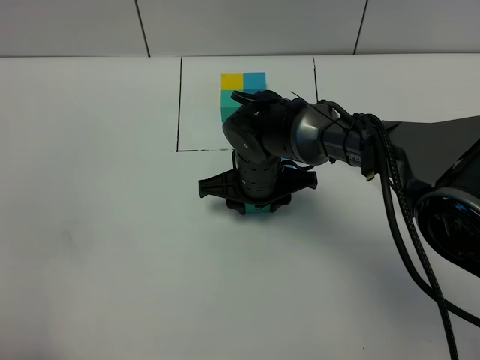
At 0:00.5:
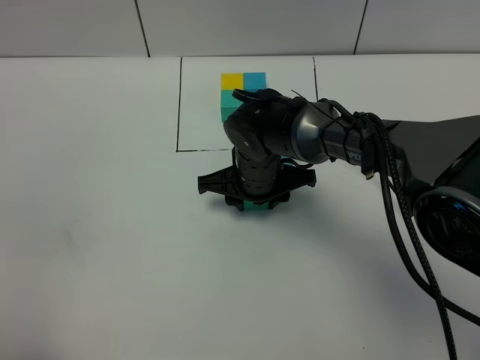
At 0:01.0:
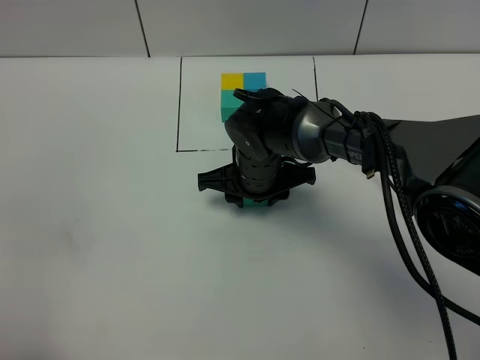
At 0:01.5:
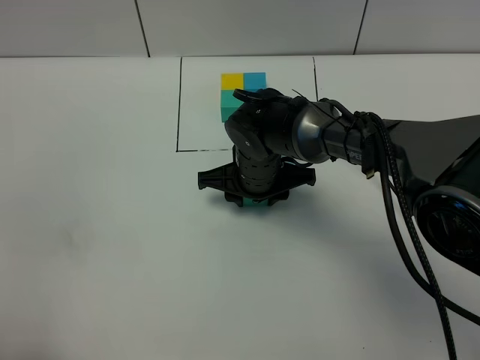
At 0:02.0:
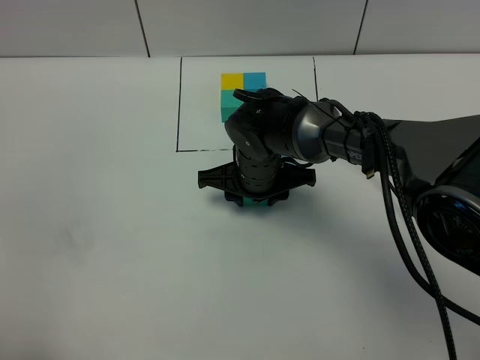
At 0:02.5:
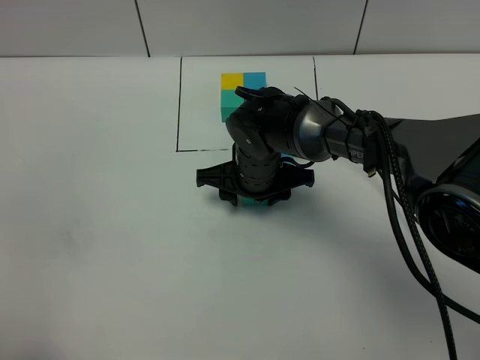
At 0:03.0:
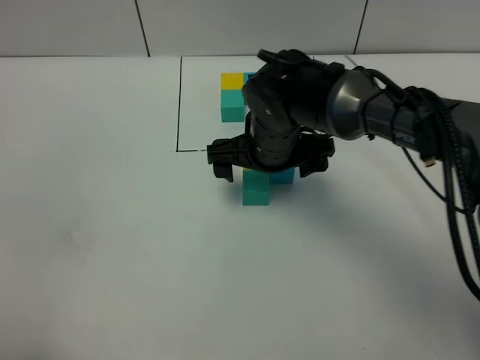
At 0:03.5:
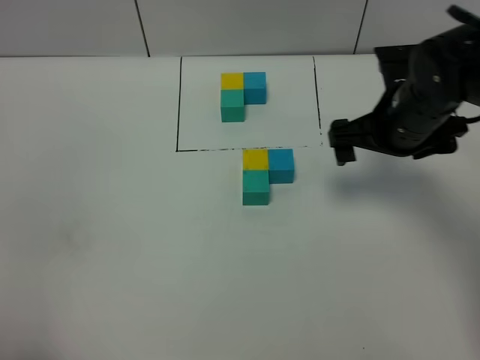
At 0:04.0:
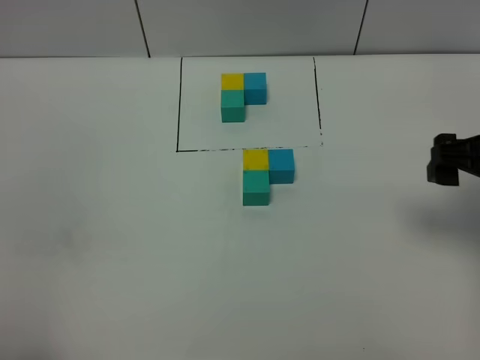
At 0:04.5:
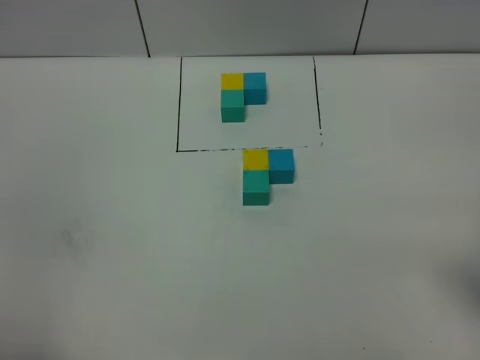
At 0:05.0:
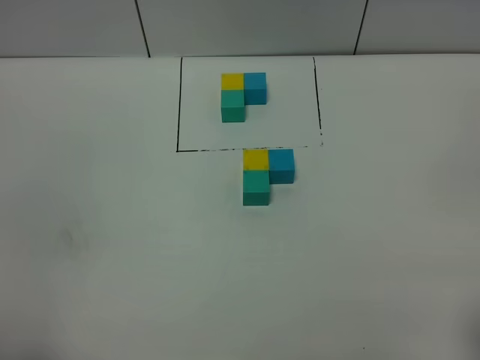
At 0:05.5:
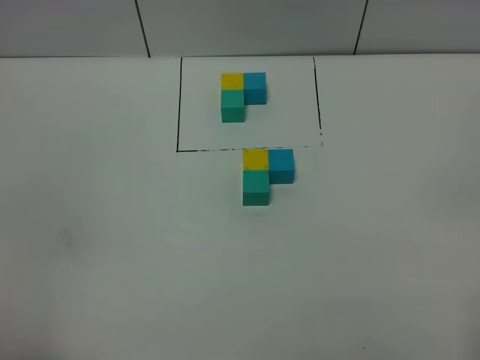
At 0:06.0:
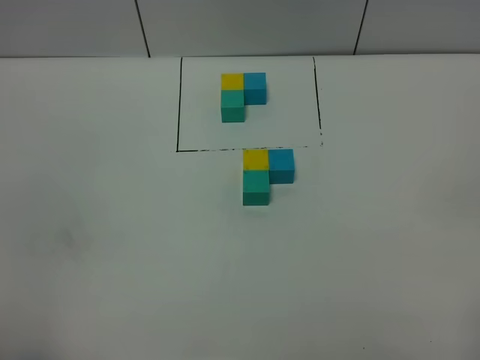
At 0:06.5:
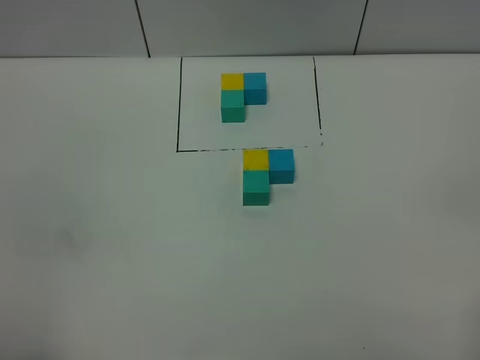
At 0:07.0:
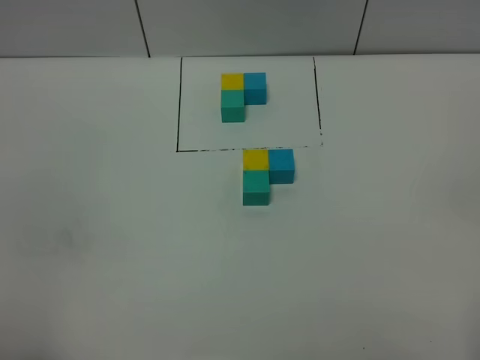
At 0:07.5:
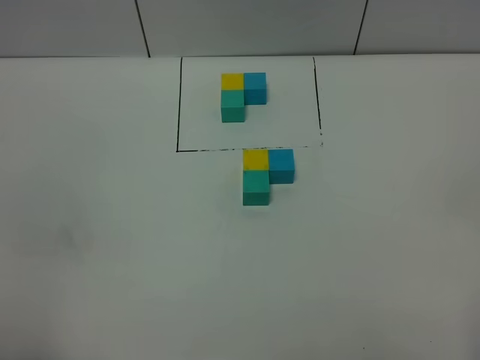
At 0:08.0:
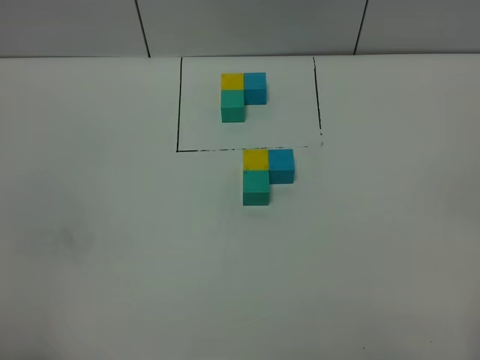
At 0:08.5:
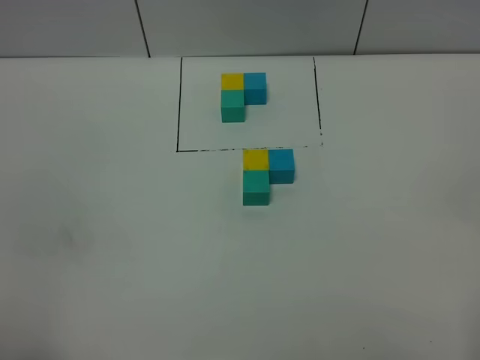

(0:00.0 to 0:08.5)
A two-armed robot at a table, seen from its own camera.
Task of the whole recording: According to the building block template in front, assemble the scattered blocks together.
Step, 0:00.0 - 0:02.5: Put the green build block on the behind of the yellow build block.
0:00.0 - 0:02.0: Both grippers stay about where they are.
0:02.0 - 0:04.0: The right gripper goes some 30 cm to the right, upward and backward, and opens its fingers.
0:04.0 - 0:06.5: The right gripper heads backward, covering roughly 25 cm.

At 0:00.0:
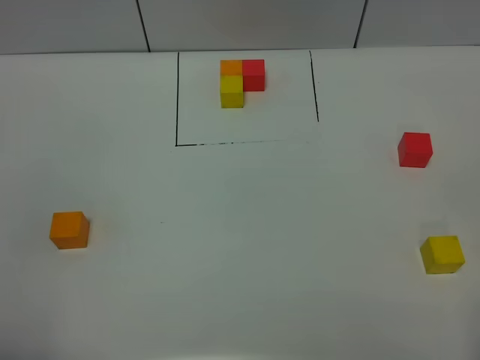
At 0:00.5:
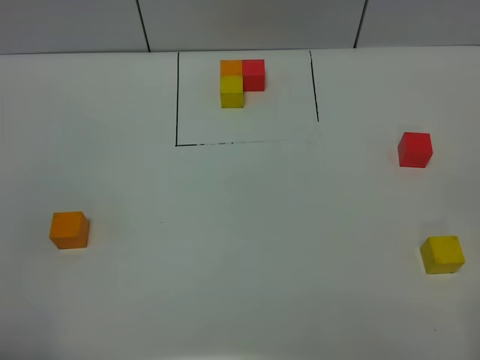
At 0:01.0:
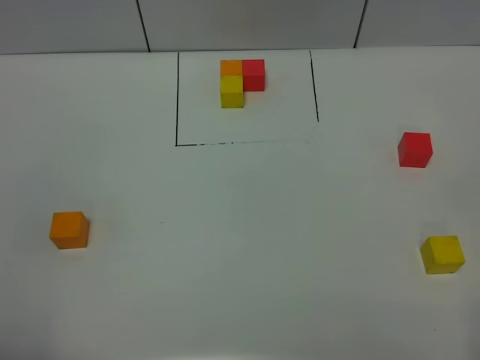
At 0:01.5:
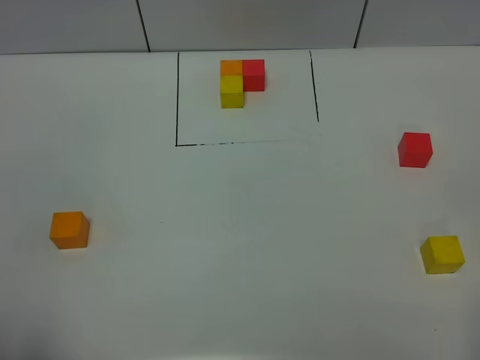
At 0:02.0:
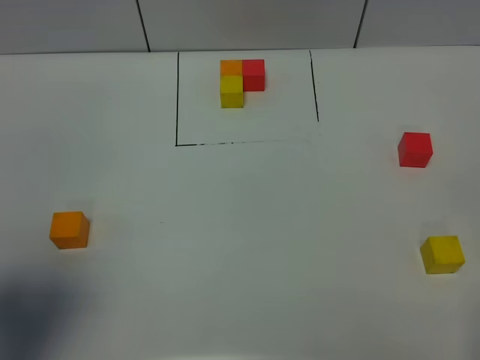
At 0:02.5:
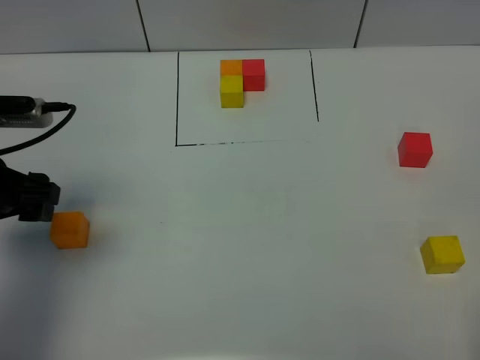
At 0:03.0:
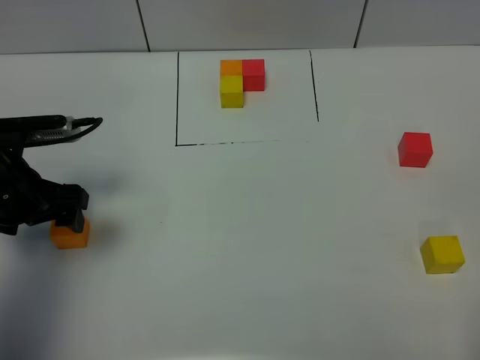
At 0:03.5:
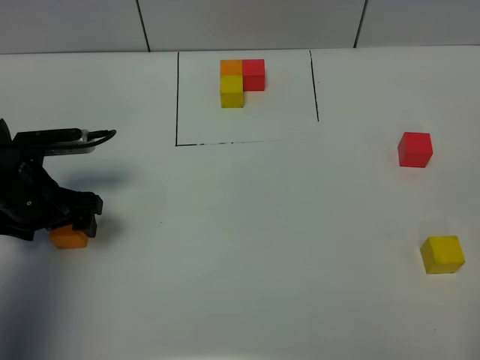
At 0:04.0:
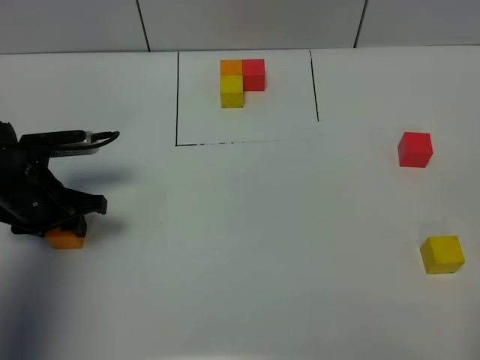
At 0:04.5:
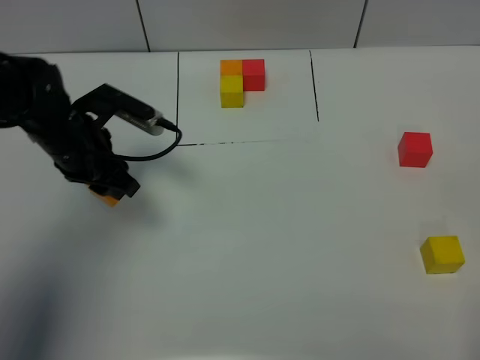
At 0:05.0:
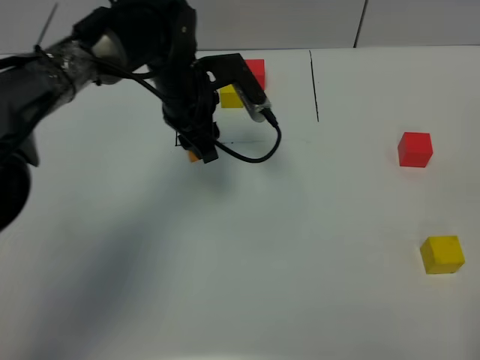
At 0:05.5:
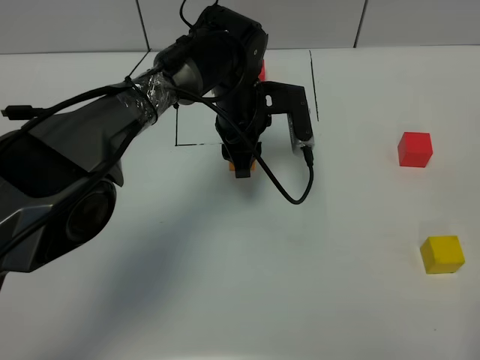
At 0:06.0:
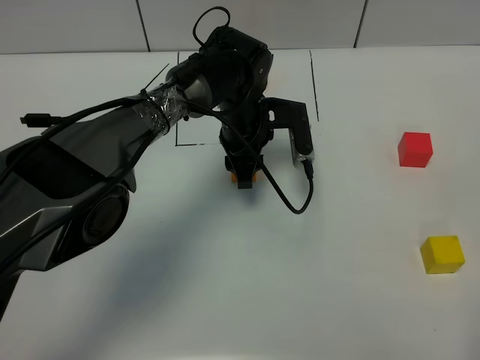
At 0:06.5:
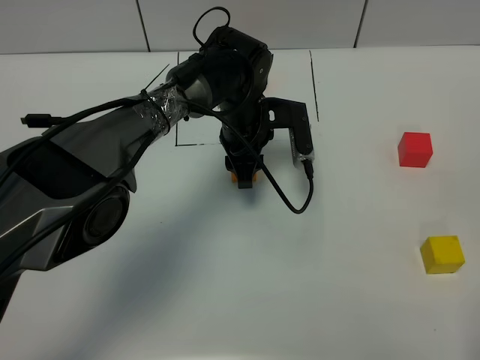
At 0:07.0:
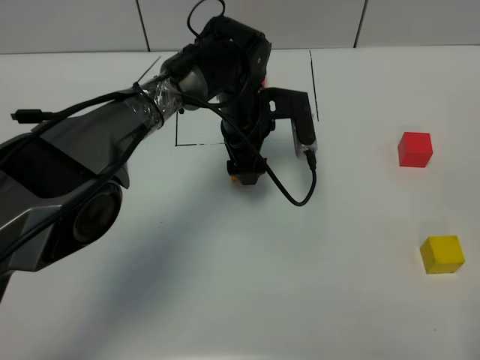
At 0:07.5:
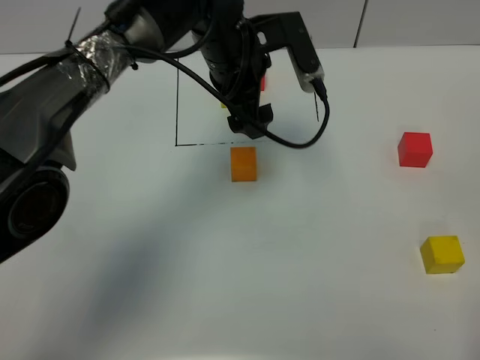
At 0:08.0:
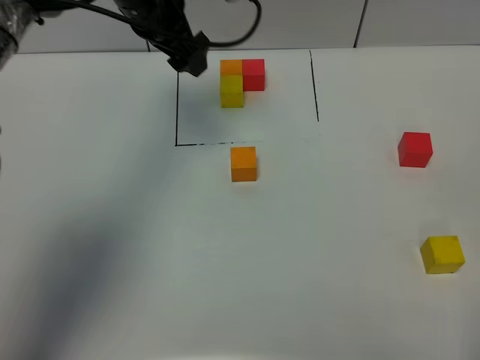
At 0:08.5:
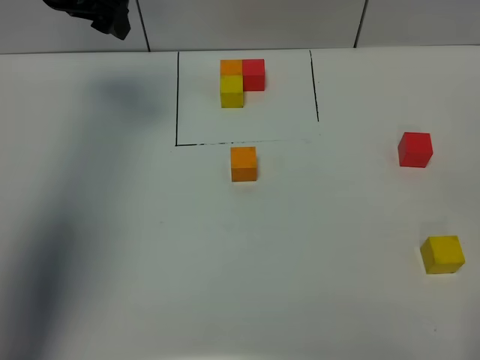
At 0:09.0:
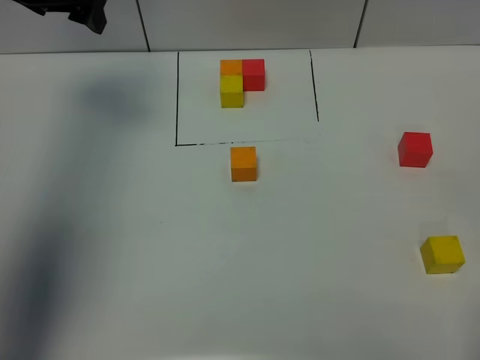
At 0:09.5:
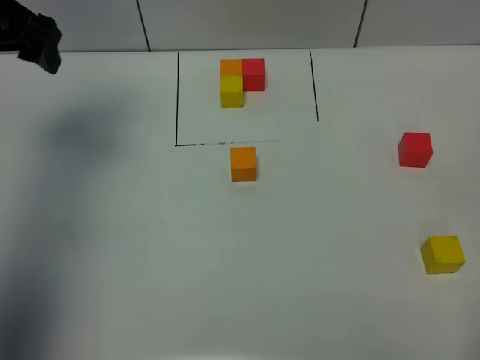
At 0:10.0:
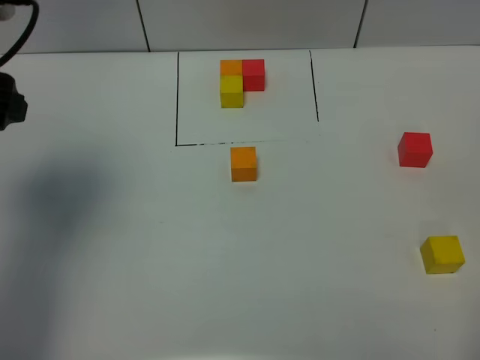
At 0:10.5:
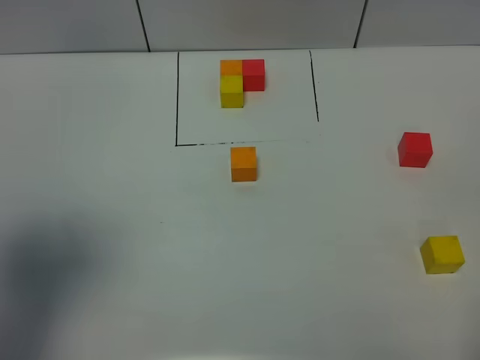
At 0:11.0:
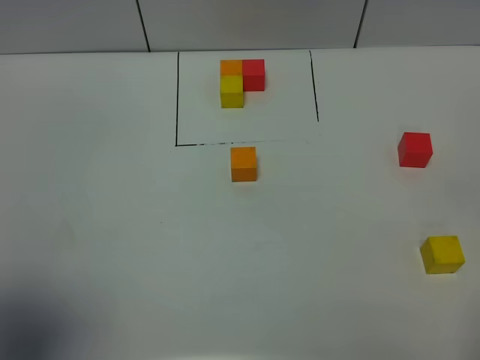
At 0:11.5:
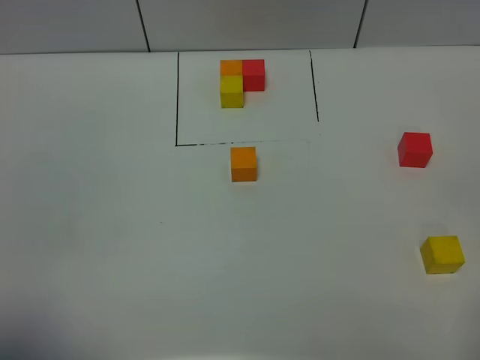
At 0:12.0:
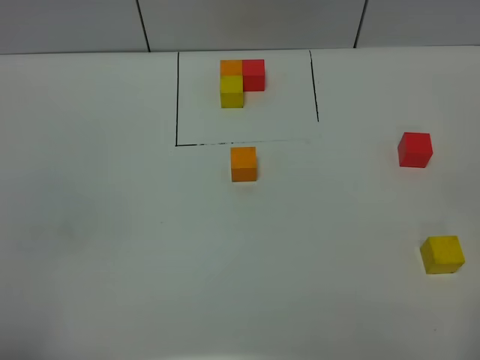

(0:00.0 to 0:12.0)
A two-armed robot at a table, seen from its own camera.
Task of the whole recording: According to the building block template in front, assemble the scattered blocks together.
Step, 0:00.0 - 0:06.5: Put the orange build block in the center of the table.
0:00.0 - 0:02.0: The left gripper travels forward by some 15 cm.
0:02.0 - 0:04.0: The left gripper travels forward and downward by roughly 25 cm, and closes its fingers.
0:04.0 - 0:06.0: The left gripper moves to the right and forward, some 30 cm.
0:06.0 - 0:08.0: The left gripper shifts roughly 20 cm upward and to the left, and opens its fingers.
0:08.0 - 0:10.0: The left gripper shifts approximately 25 cm backward and to the left.
0:10.0 - 0:12.0: The left gripper shifts about 25 cm backward.

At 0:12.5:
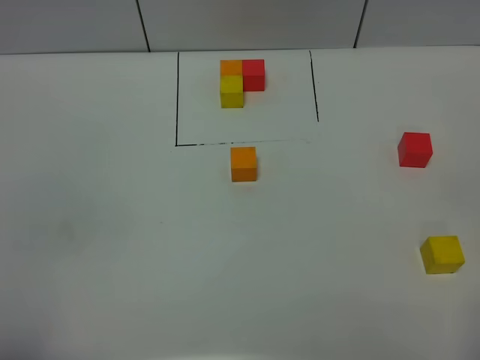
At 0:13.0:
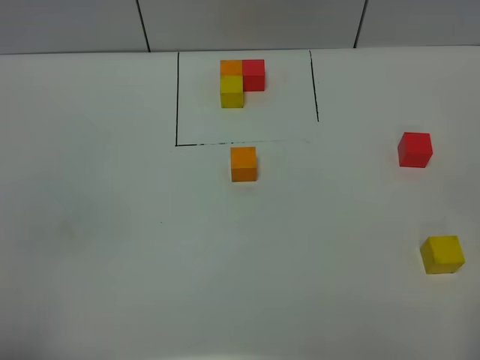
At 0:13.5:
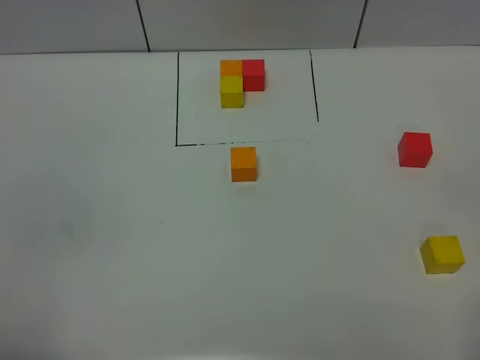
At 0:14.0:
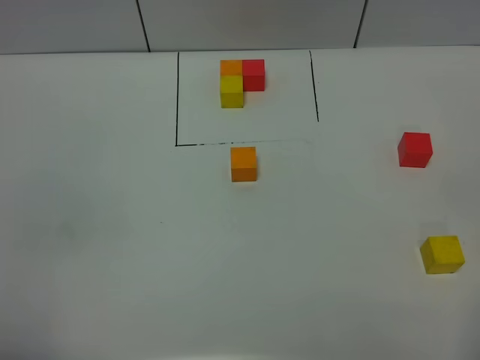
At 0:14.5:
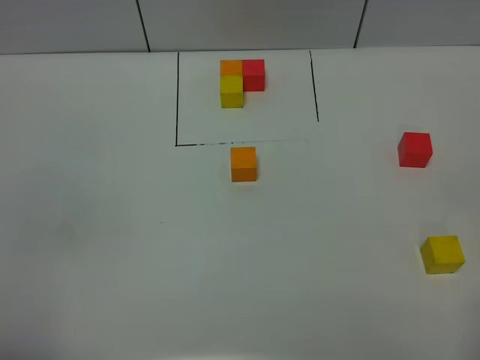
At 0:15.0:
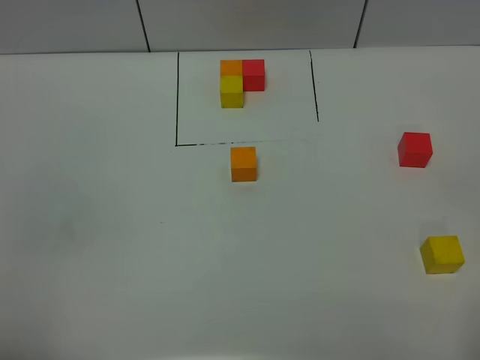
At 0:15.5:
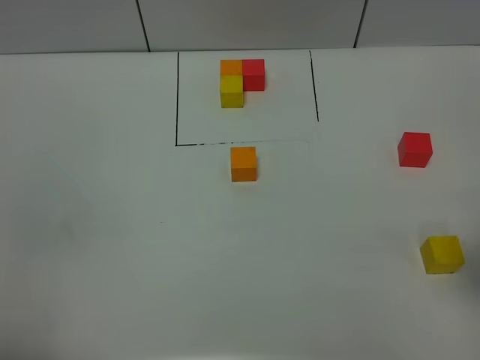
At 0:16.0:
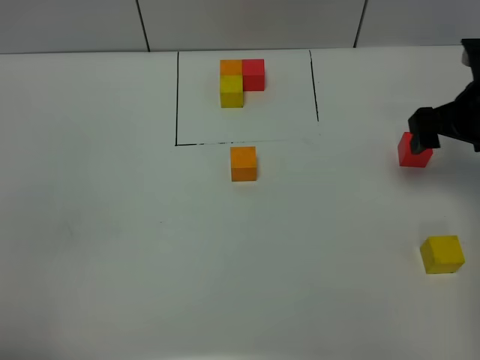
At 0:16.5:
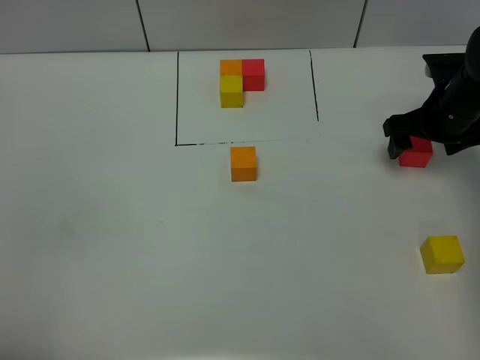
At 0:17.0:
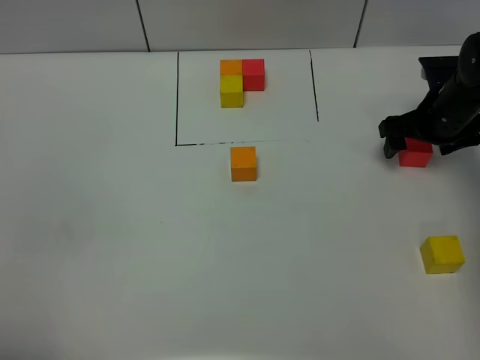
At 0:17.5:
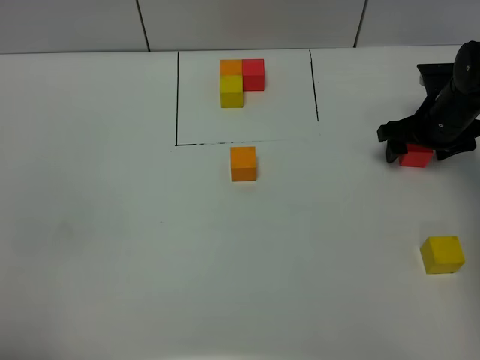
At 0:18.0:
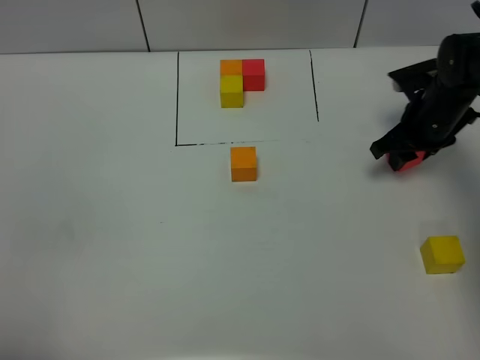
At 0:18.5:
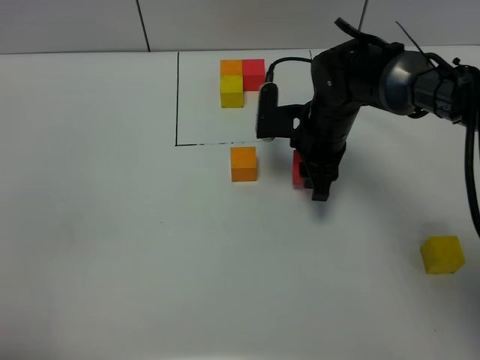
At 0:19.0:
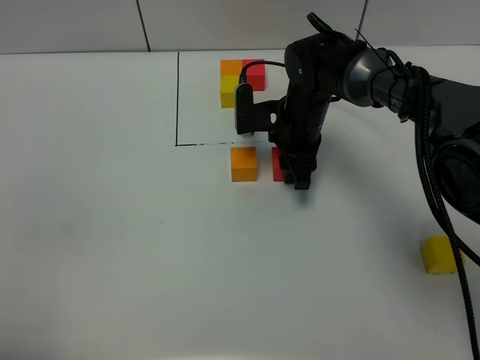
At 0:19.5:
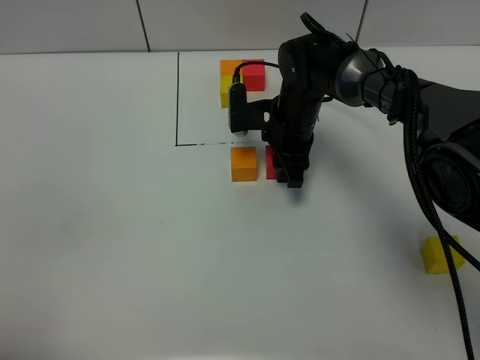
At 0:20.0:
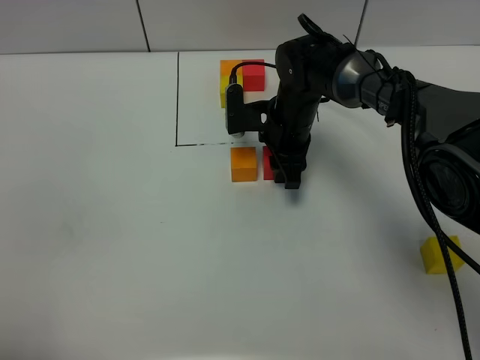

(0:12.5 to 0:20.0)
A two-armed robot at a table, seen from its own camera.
Task of the whole recording: According to the building block template in front, assemble the scattered blocks together.
0:14.5 - 0:16.5: The right gripper shifts approximately 40 cm forward.
0:16.5 - 0:18.0: The right gripper closes its fingers.
0:18.0 - 0:20.0: The right gripper moves to the left, roughly 20 cm.
